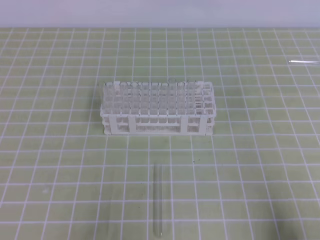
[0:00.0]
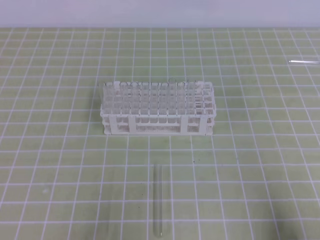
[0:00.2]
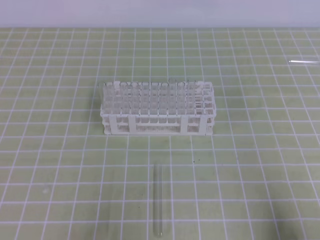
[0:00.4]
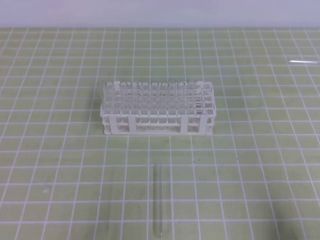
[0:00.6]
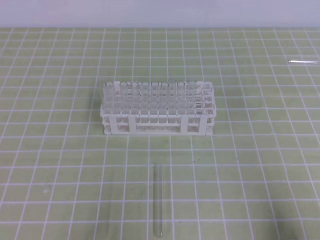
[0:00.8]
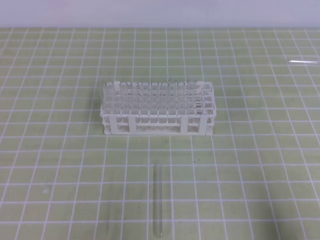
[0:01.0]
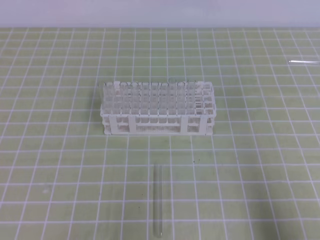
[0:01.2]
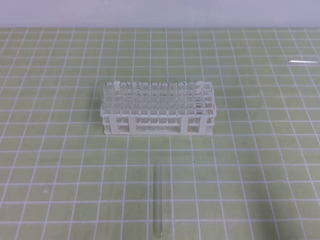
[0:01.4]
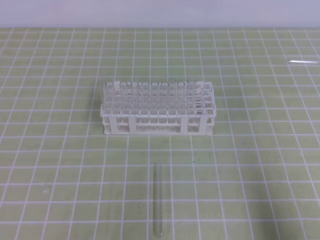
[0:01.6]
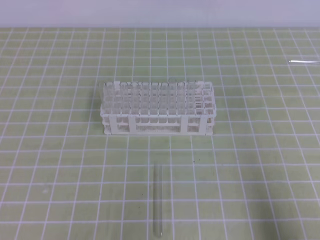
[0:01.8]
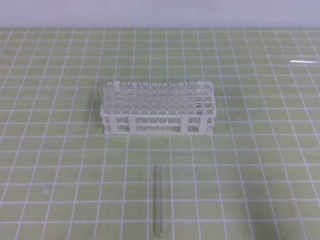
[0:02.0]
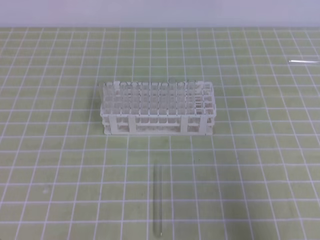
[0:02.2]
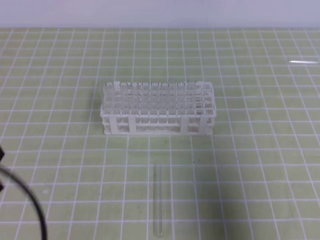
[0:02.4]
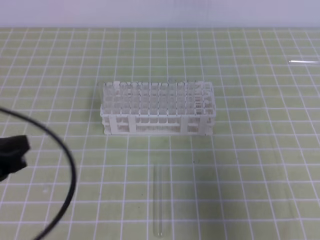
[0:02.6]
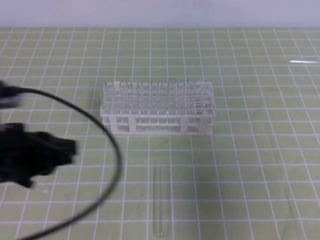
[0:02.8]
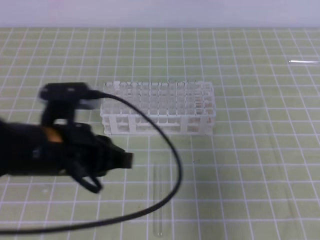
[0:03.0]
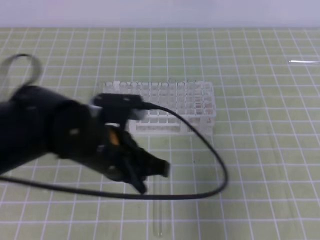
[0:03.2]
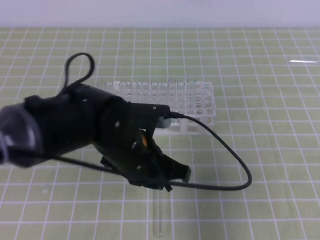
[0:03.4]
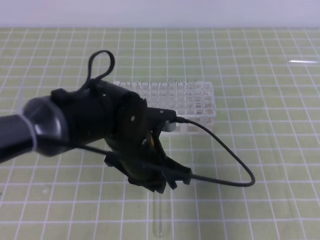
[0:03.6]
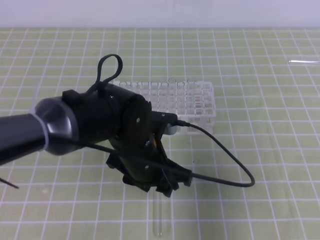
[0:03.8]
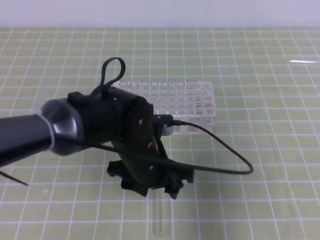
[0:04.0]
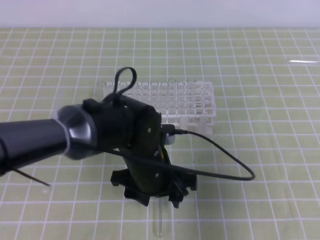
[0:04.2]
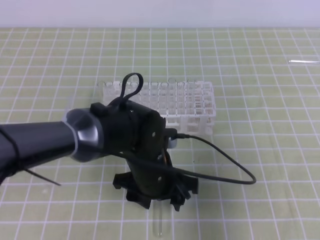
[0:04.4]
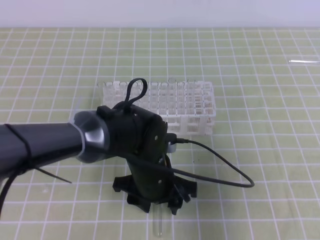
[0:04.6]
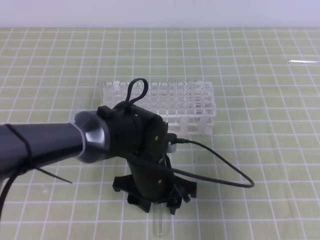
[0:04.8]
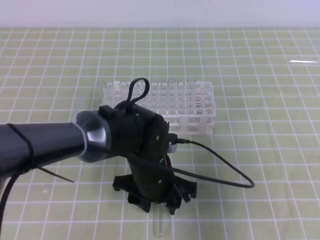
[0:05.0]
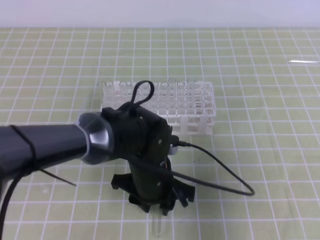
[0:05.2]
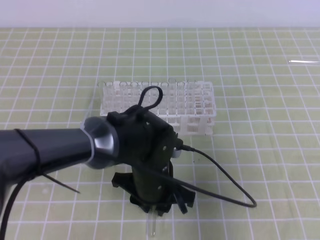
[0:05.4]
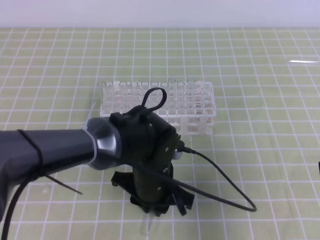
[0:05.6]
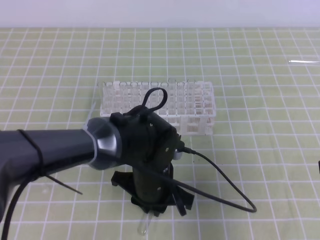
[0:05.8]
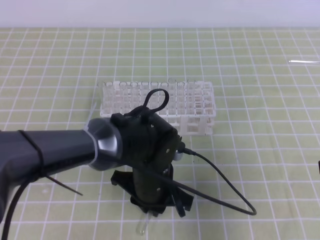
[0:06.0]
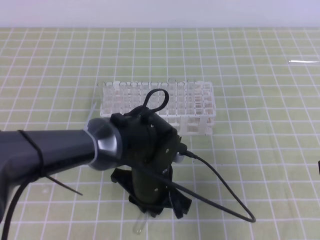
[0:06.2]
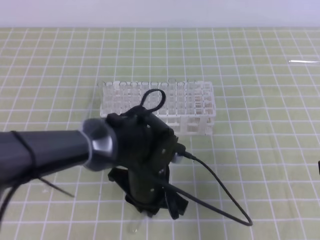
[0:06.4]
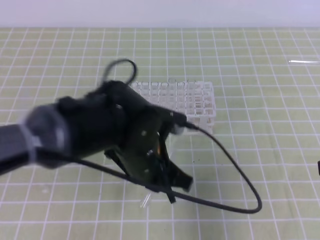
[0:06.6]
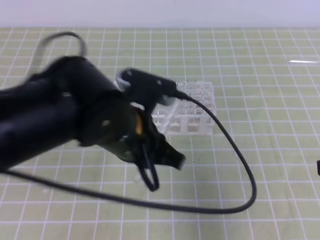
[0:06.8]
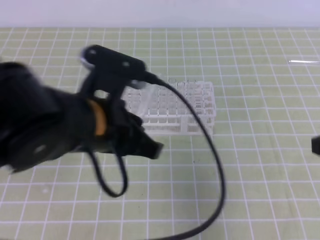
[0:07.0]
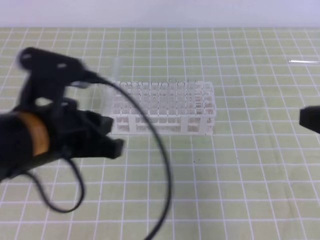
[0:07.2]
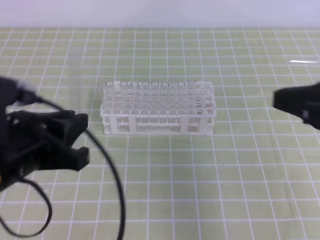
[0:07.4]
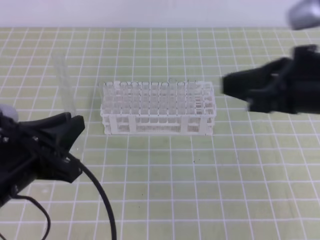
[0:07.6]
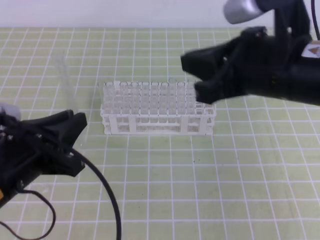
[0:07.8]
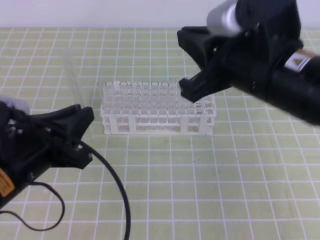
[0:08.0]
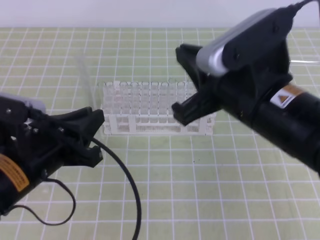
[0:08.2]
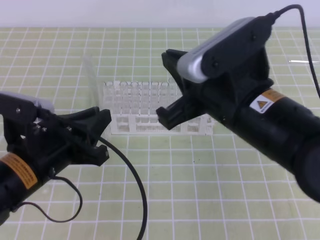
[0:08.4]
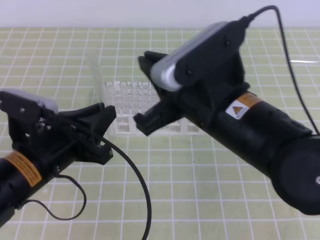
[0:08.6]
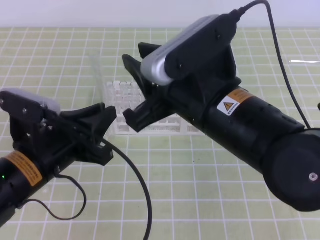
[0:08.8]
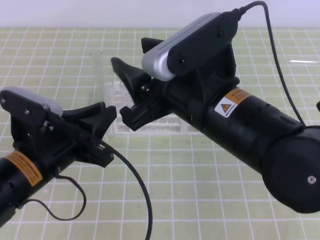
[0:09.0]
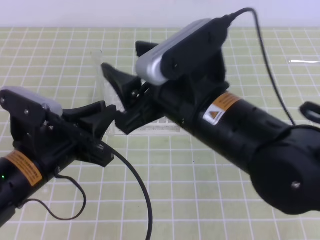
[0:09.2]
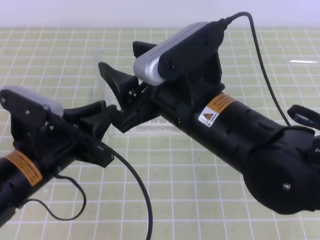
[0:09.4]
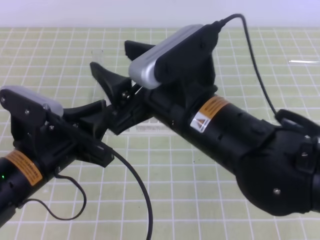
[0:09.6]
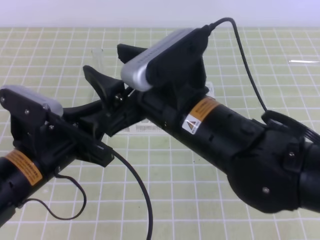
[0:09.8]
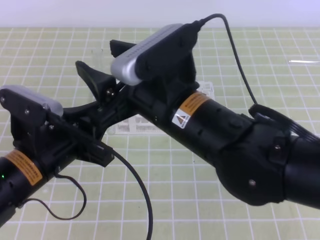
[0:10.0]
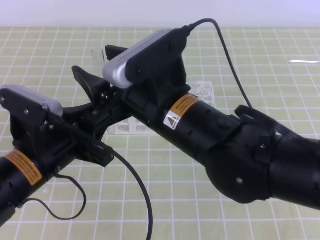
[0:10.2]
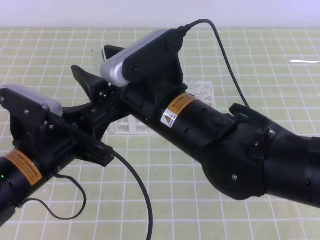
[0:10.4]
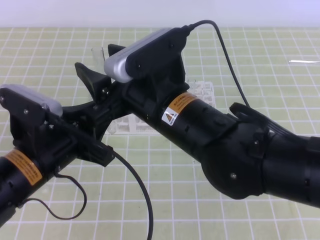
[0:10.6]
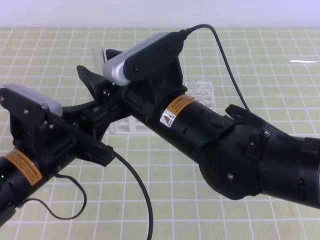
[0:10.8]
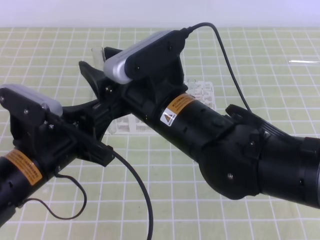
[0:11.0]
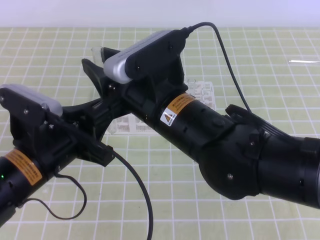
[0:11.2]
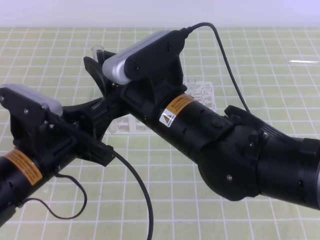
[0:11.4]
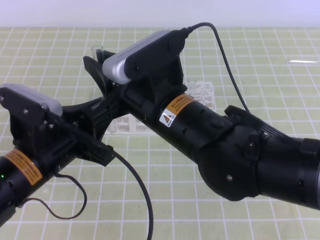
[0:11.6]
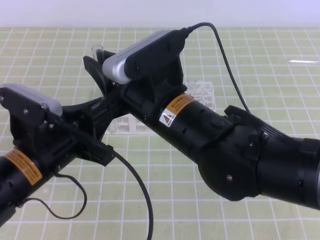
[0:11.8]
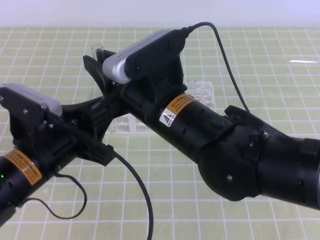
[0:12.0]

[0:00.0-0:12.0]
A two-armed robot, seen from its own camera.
0:01.6 to 0:03.0: The right gripper is displaced upward and forward by some 15 cm; the left gripper moves forward, to the right and upward, approximately 20 cm.
0:03.0 to 0:04.4: The left gripper is displaced to the right and downward by roughly 15 cm, and opens its fingers.
0:06.0 to 0:07.6: The right gripper heads to the left, upward and forward, covering roughly 10 cm.
0:07.6 to 0:09.0: The left gripper changes place by about 5 cm. Meanwhile the right gripper moves to the left, some 15 cm, and opens.
0:09.0 to 0:10.4: The right gripper shifts by roughly 5 cm.
0:10.4 to 0:12.0: The left gripper opens; the right gripper closes up.

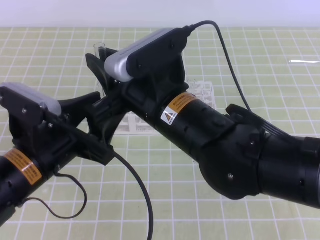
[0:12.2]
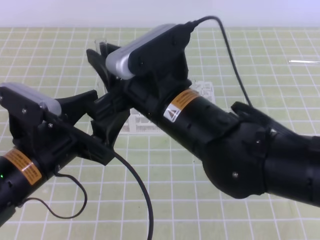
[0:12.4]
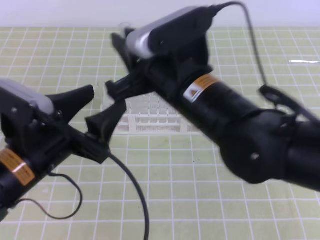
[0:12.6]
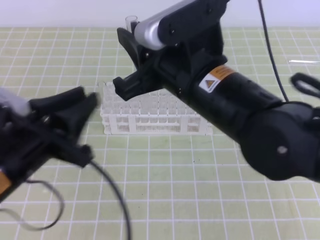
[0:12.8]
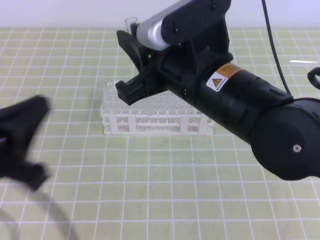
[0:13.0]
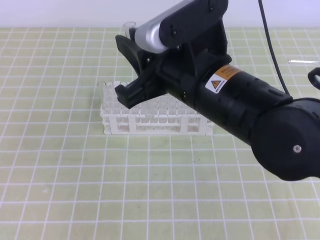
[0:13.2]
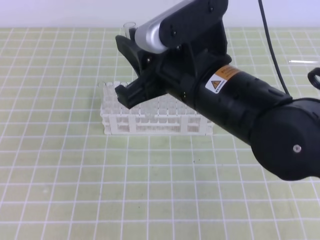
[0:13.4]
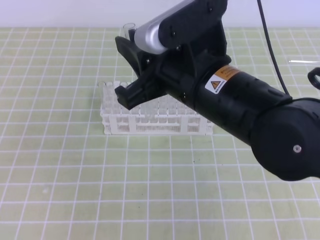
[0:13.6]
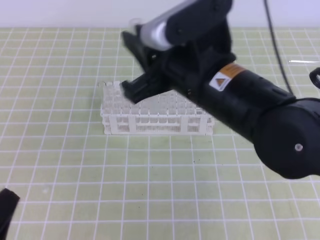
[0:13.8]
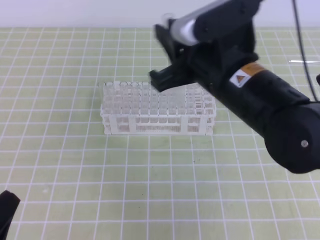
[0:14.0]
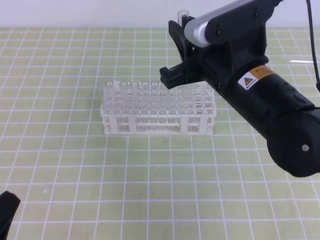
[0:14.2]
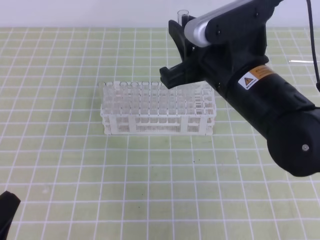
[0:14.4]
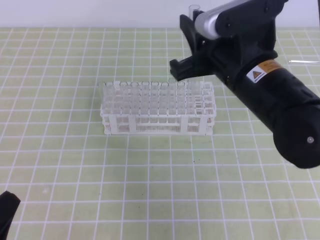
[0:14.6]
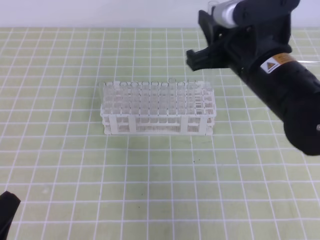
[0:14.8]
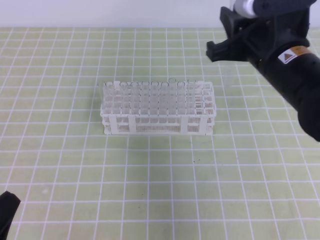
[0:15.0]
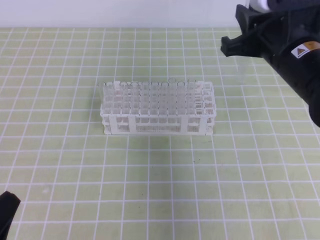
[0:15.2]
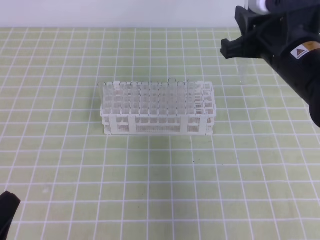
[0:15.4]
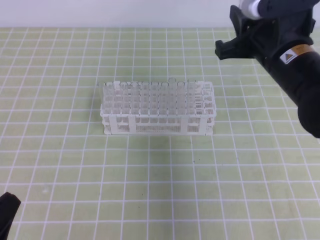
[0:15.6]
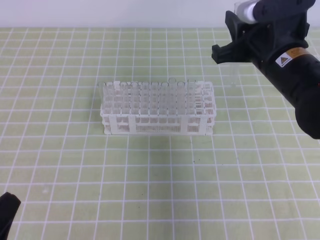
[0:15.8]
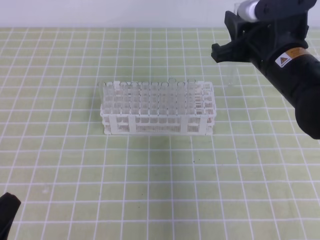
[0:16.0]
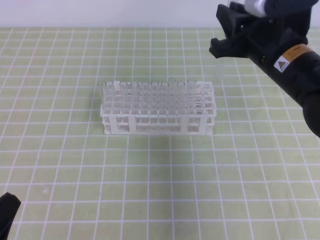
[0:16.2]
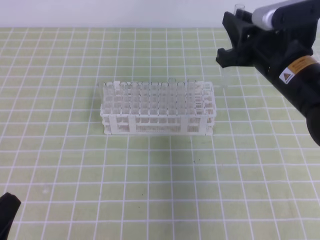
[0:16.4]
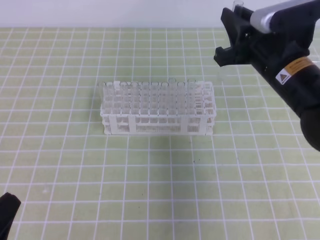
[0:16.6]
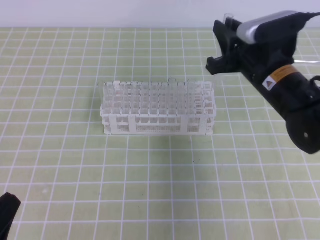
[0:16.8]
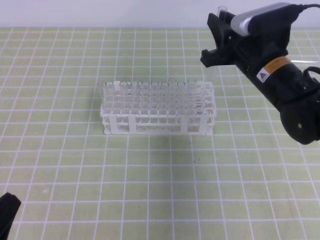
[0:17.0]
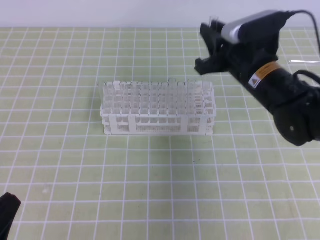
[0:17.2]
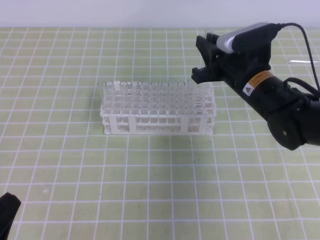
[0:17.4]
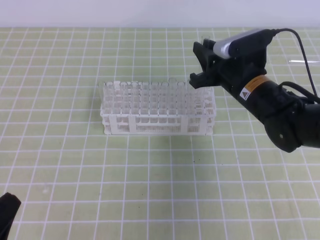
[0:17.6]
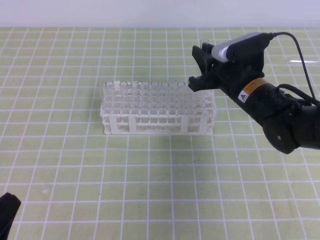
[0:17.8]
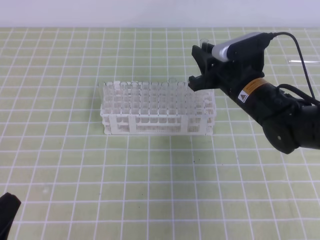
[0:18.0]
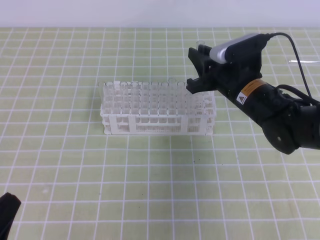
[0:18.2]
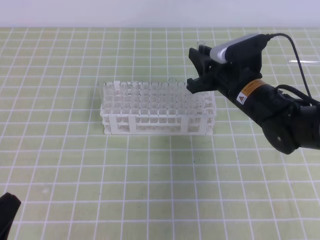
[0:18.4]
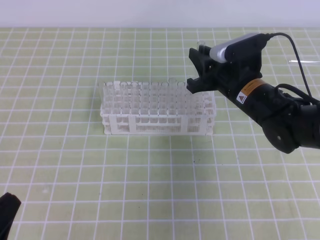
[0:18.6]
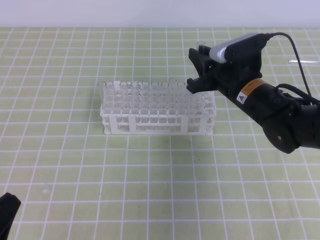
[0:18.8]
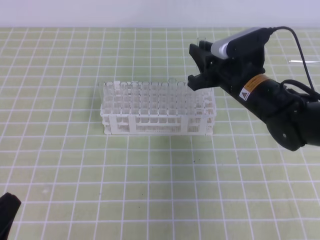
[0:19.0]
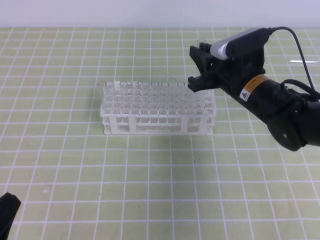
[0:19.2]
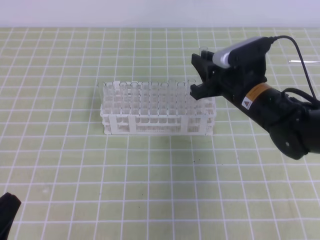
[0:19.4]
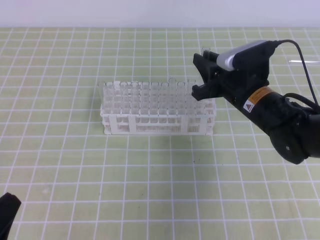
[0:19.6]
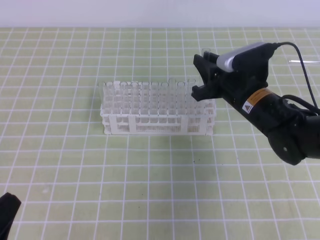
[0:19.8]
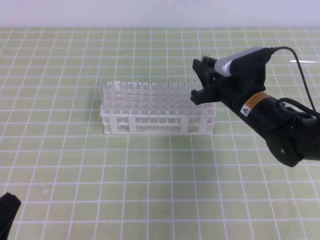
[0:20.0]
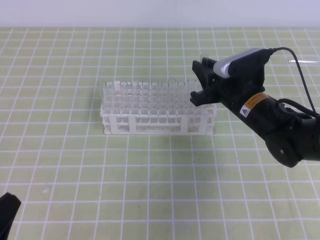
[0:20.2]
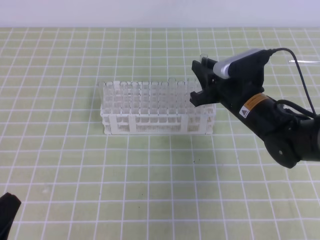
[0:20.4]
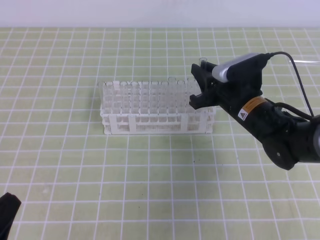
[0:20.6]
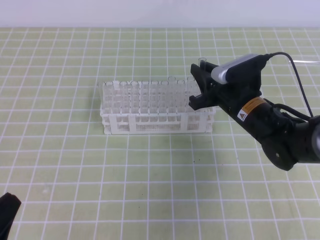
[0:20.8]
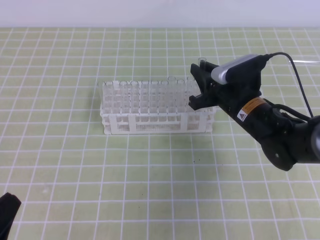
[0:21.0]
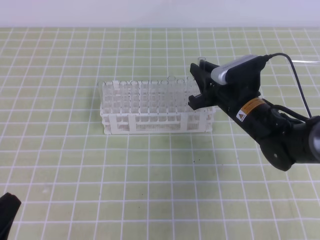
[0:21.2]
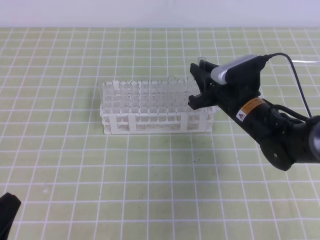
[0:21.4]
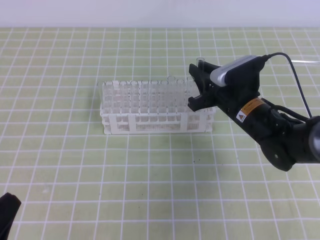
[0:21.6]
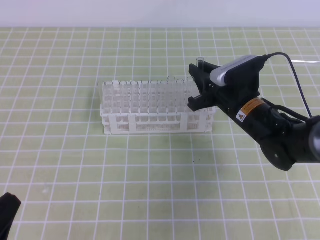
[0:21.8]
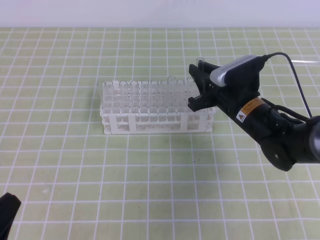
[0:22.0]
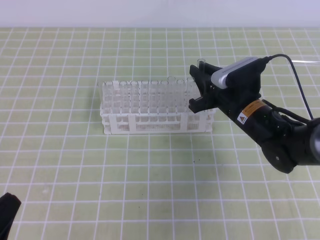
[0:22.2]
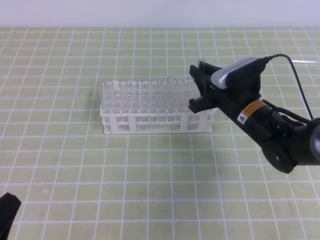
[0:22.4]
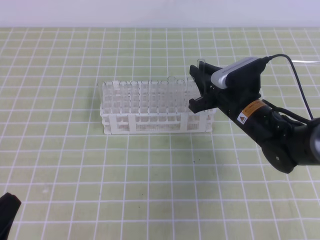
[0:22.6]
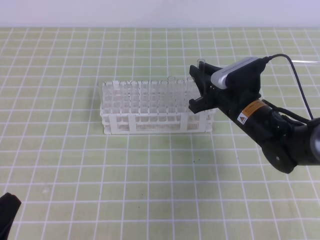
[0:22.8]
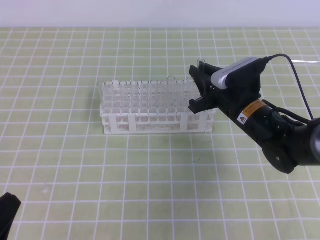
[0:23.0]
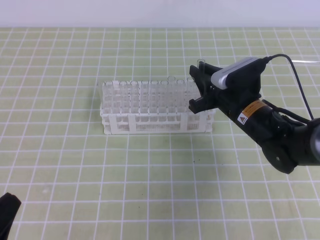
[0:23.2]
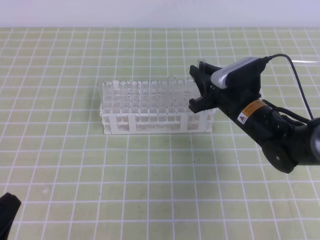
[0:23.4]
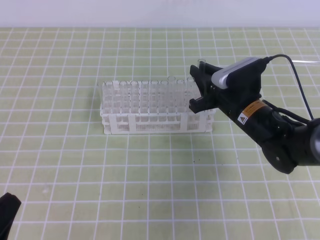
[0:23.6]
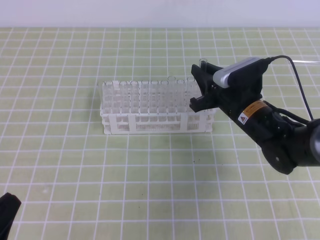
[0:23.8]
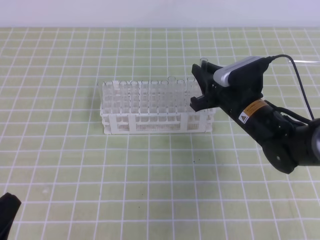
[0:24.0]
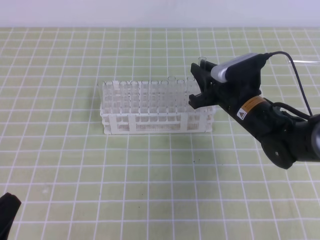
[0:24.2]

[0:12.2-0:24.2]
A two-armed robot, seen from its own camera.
0:12.2 to 0:13.8: The left gripper heads backward and to the left, covering approximately 20 cm, and closes. Meanwhile the right gripper shifts about 5 cm to the right.
0:13.8 to 0:15.2: The right gripper travels to the right and forward by approximately 10 cm.
0:15.2 to 0:16.6: The grippers move only a little.
0:16.6 to 0:18.2: The right gripper is displaced downward by some 5 cm.
0:18.2 to 0:21.2: There are only small adjustments of the grippers.
0:21.2 to 0:24.2: The two grippers keep their place.
